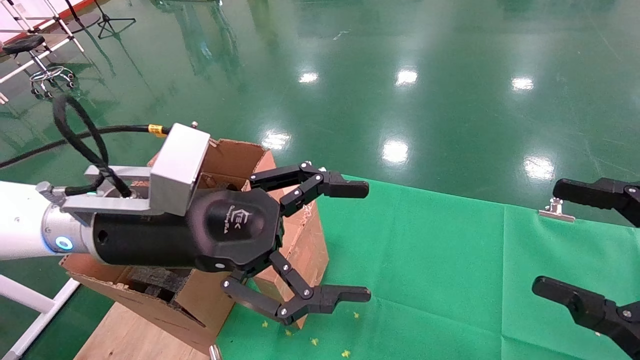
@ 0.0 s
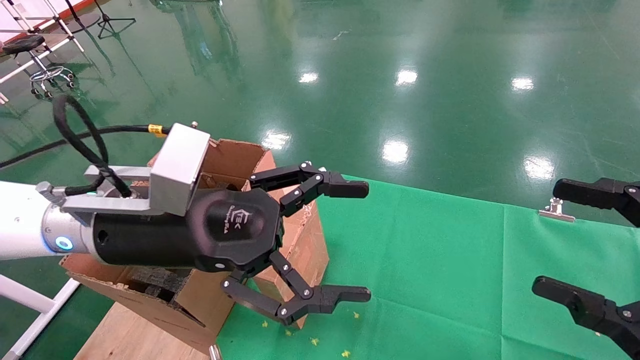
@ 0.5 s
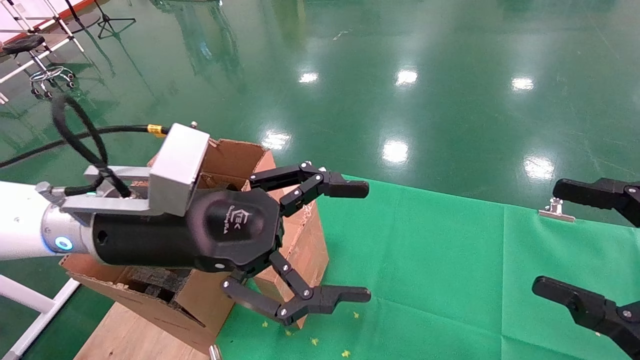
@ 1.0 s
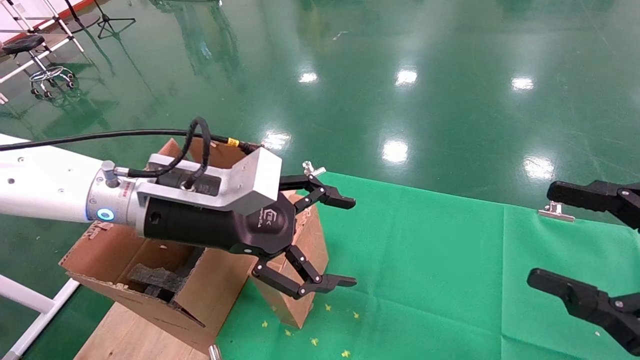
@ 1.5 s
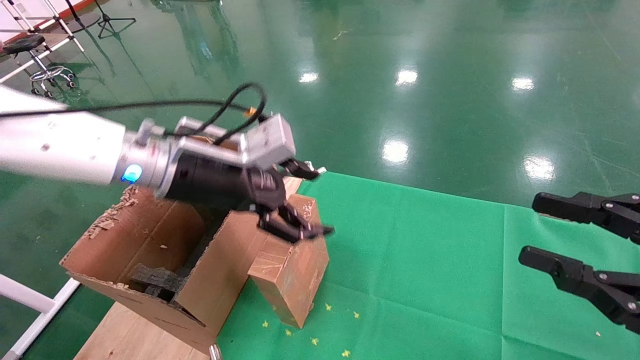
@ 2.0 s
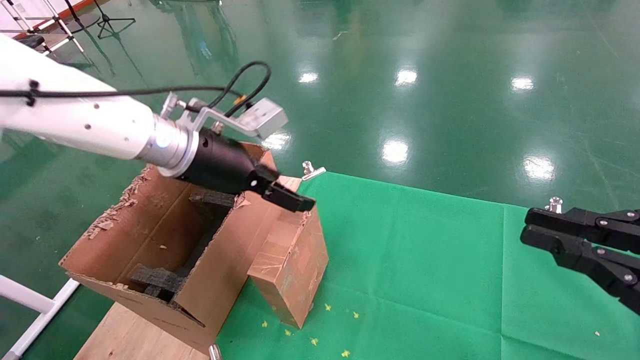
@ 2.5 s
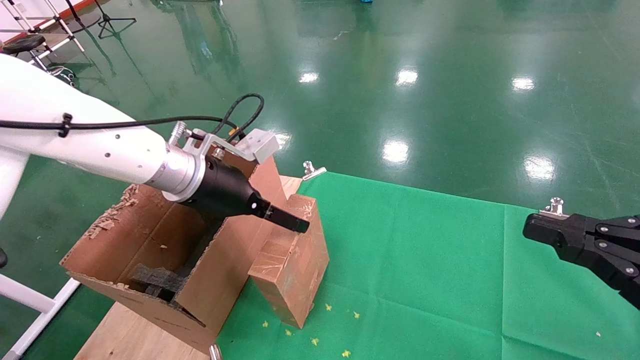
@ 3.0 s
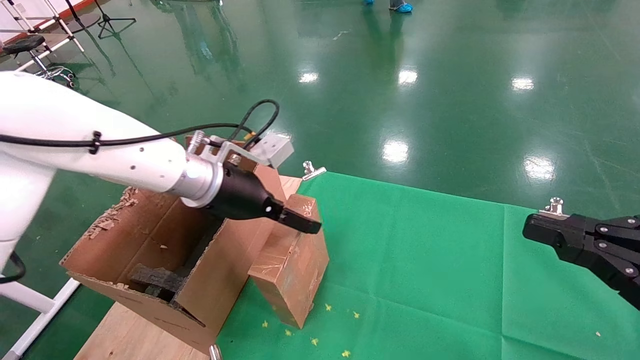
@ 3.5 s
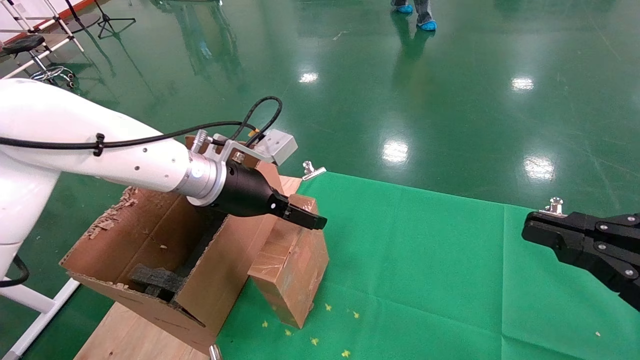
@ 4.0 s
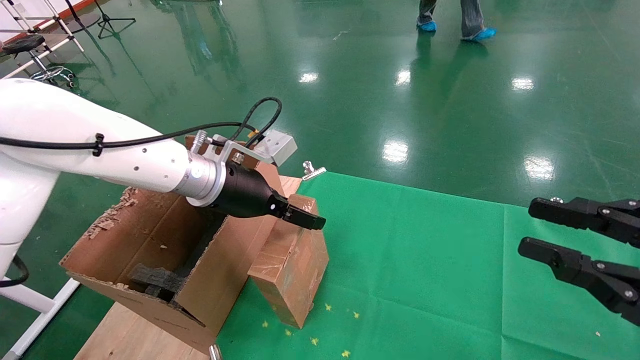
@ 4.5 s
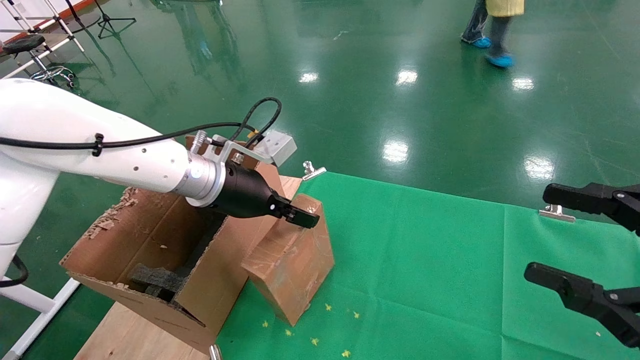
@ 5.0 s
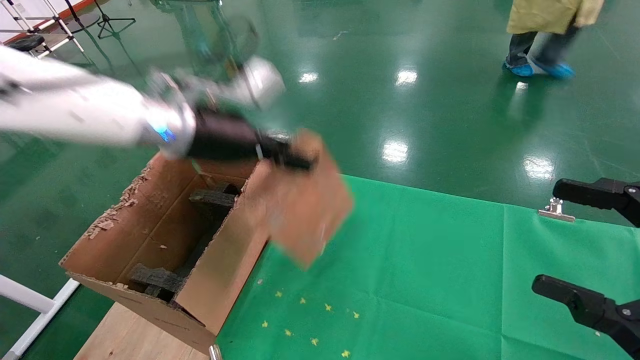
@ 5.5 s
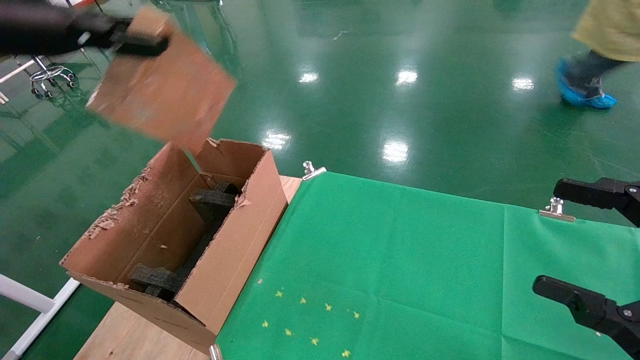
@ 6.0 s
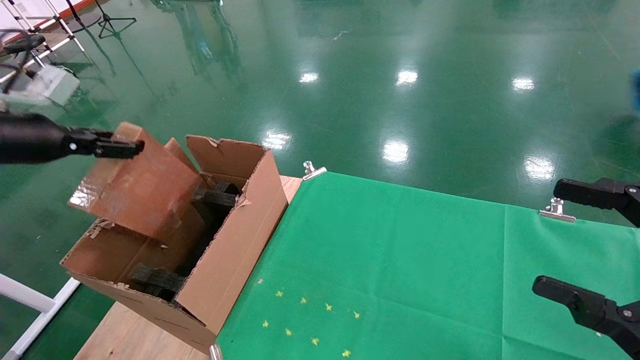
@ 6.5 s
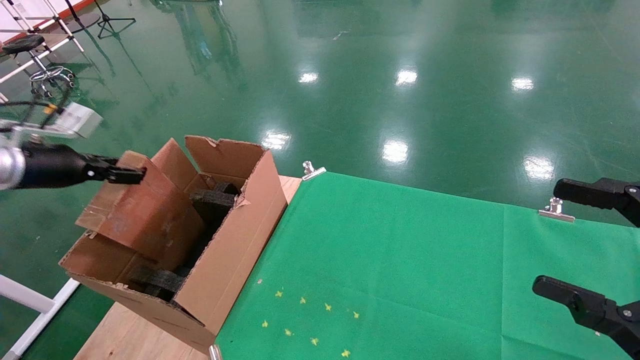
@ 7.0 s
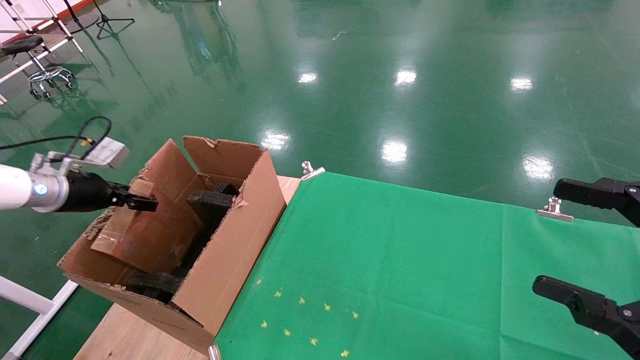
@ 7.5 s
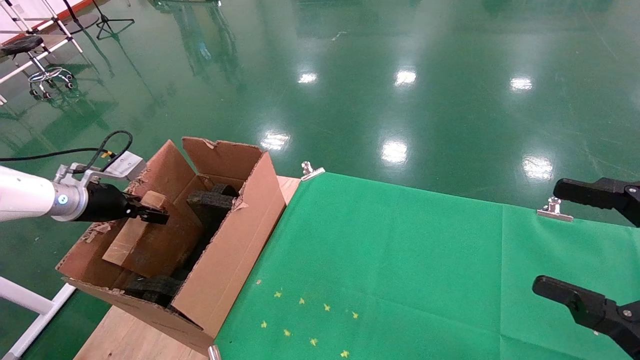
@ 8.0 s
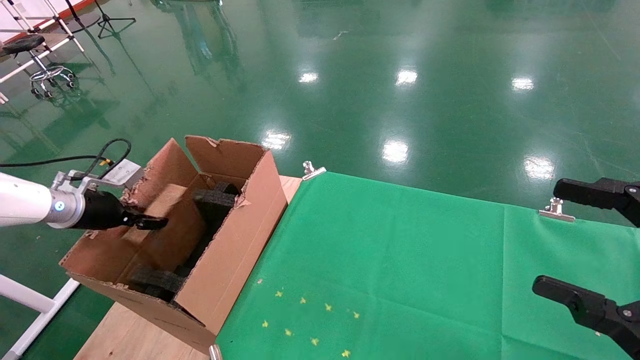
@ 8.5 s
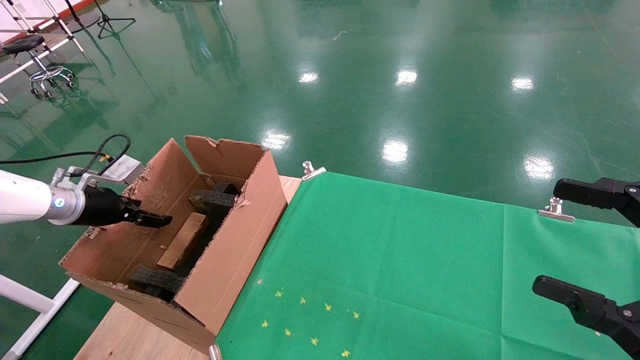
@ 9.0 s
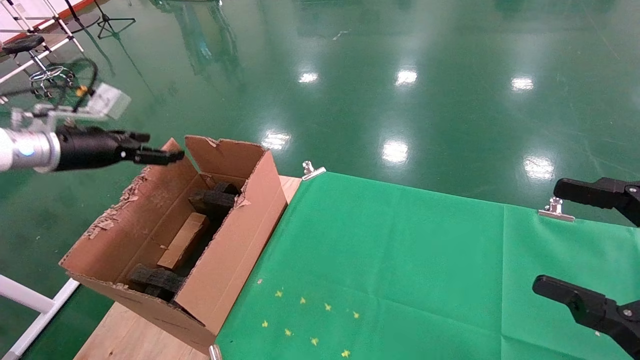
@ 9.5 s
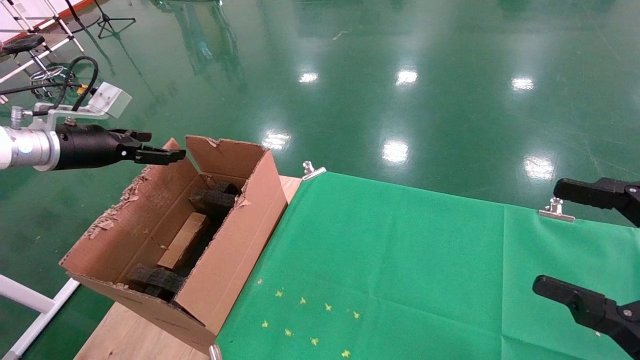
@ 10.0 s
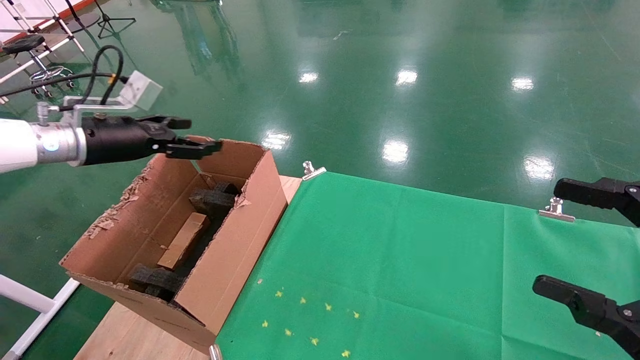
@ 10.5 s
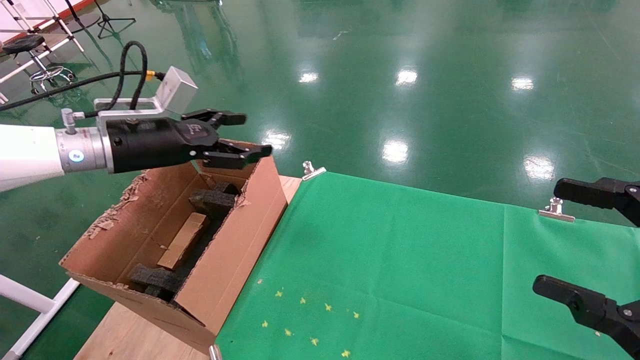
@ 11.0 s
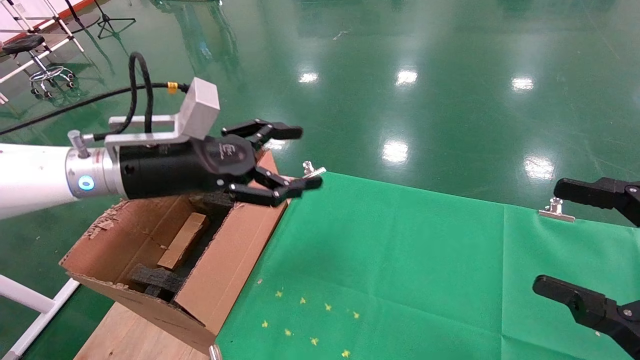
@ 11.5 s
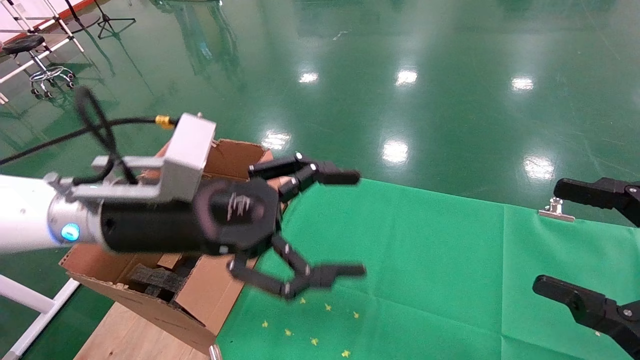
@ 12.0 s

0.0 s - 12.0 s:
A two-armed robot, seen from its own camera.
Task of the whole recording: using a robotic arm to pick up a cardboard box and palace it the carton.
Step, 1.5 s - 4.5 s: Pick up the mouse and the power cord paper box.
Step, 5.0 s - 9.5 s: Place the mouse and the power cord paper box into the container.
0.0 s - 2.0 s: The right gripper closes its fingers; the left gripper is displaced forward by roughly 10 cm.
2.0 s - 4.0 s: The left gripper shifts roughly 5 cm forward, while the right gripper closes its fingers.
4.0 s - 6.0 s: The right gripper opens. The left gripper travels to the left, upward and backward by some 25 cm, and closes up.
6.0 s - 8.0 s: The left gripper moves downward and to the left, about 25 cm.
8.0 s - 10.0 s: The left gripper is displaced upward by roughly 10 cm, and opens up.
10.0 s - 12.0 s: The left gripper goes about 30 cm to the right and backward.

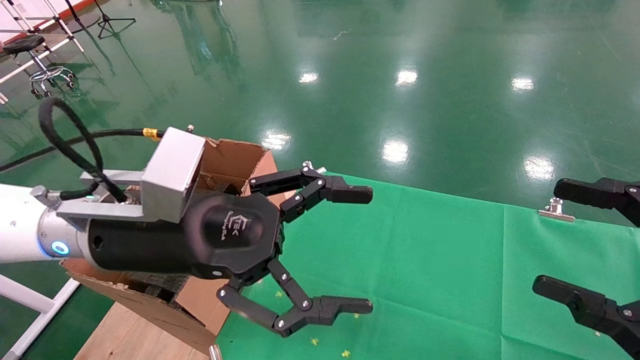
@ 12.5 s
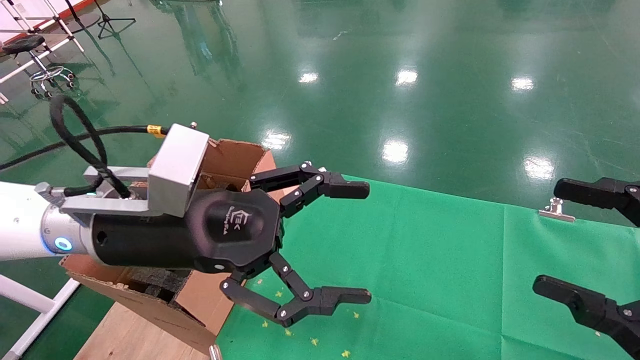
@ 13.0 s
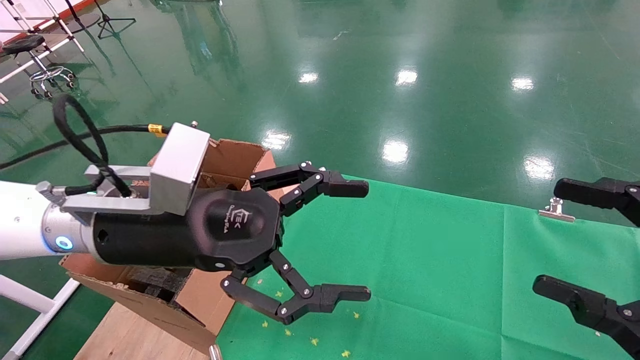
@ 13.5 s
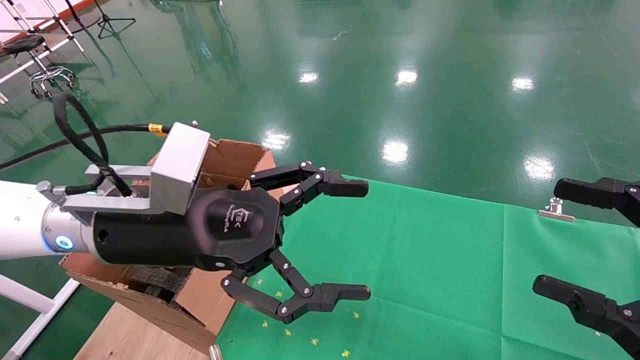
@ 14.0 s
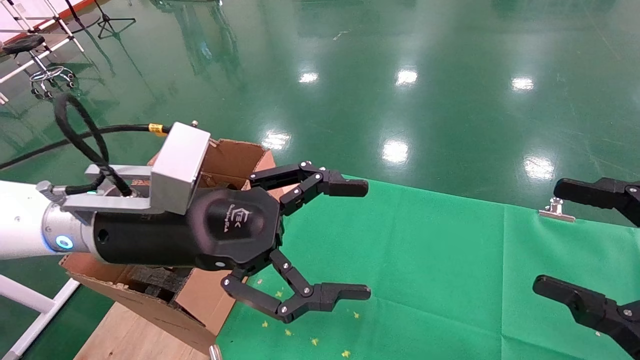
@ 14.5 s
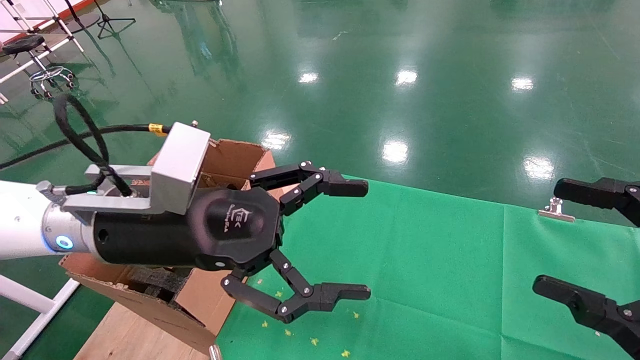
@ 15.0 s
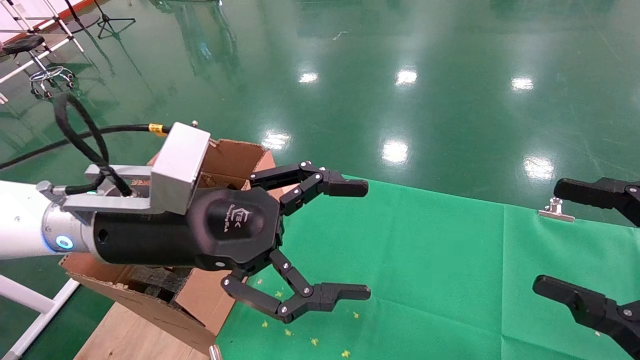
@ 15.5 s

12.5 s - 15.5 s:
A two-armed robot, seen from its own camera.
Task of the whole recording: using a robotic arm to pick up a cardboard box and palace it the carton.
12.5 s - 15.5 s: Both grippers stay about where they are.

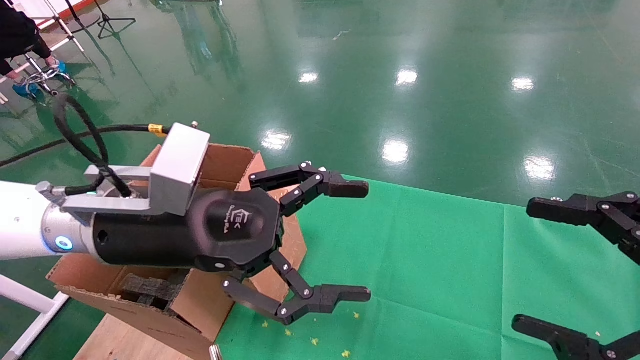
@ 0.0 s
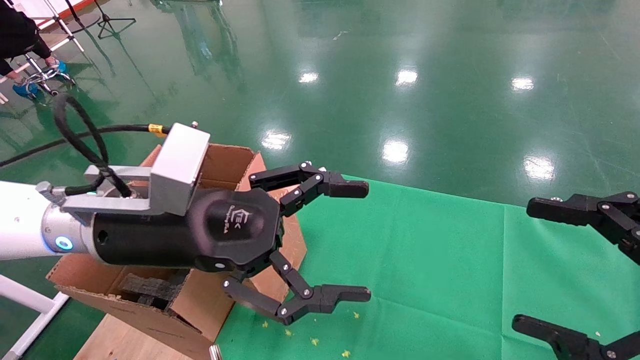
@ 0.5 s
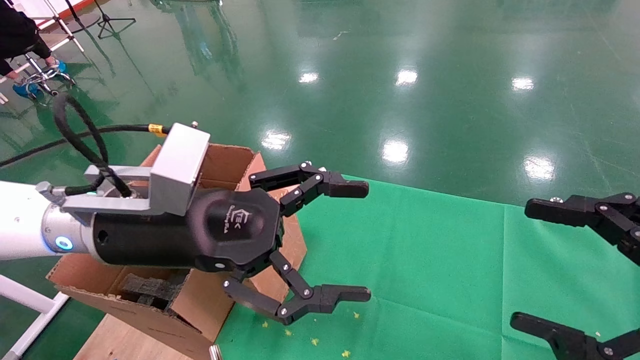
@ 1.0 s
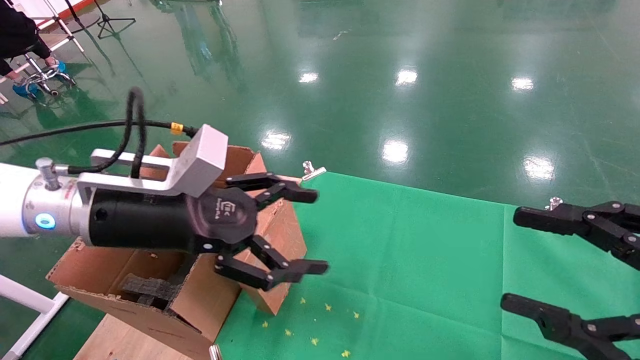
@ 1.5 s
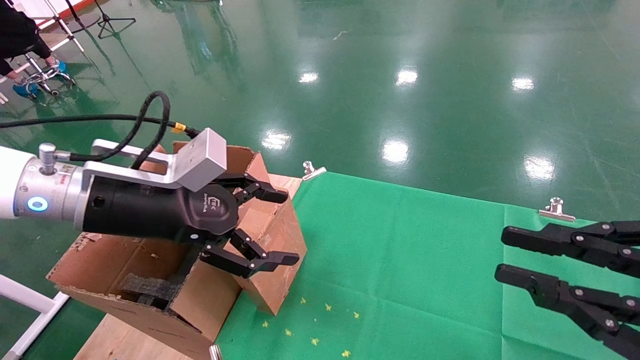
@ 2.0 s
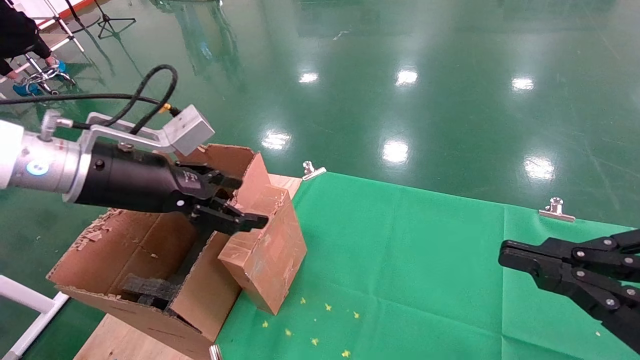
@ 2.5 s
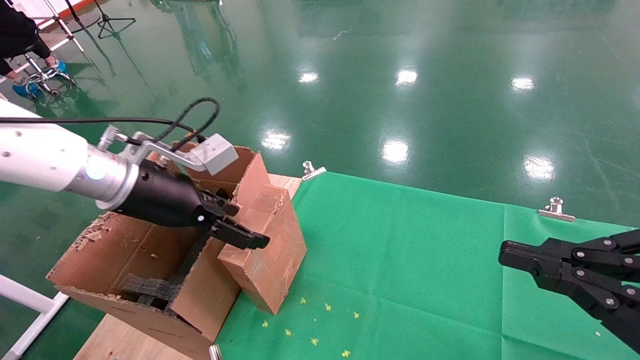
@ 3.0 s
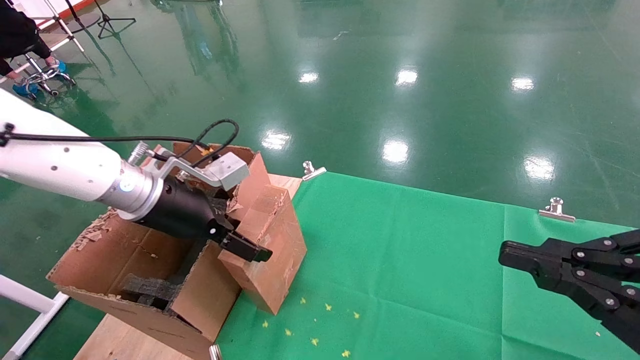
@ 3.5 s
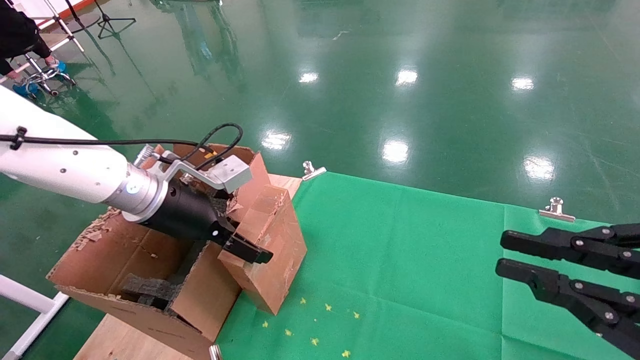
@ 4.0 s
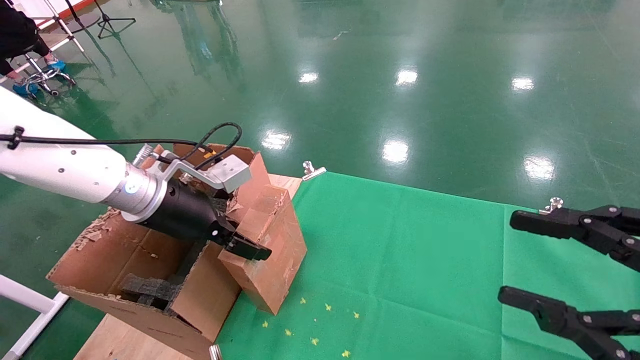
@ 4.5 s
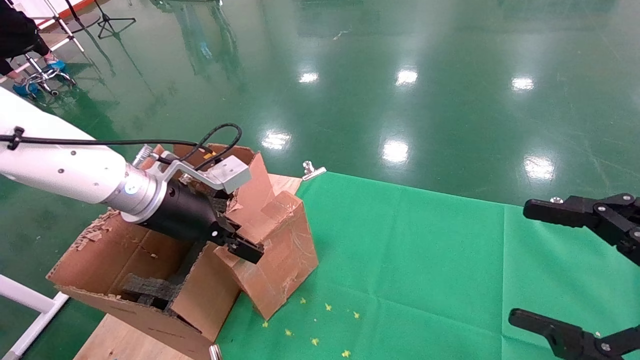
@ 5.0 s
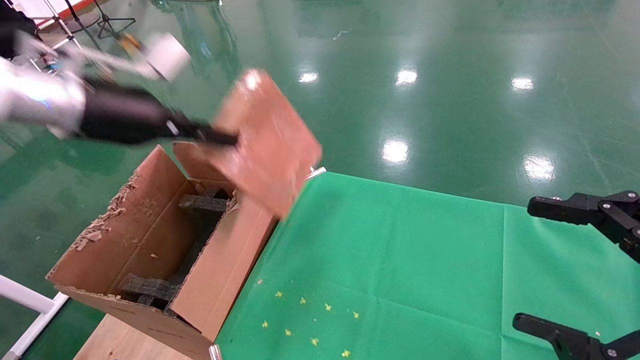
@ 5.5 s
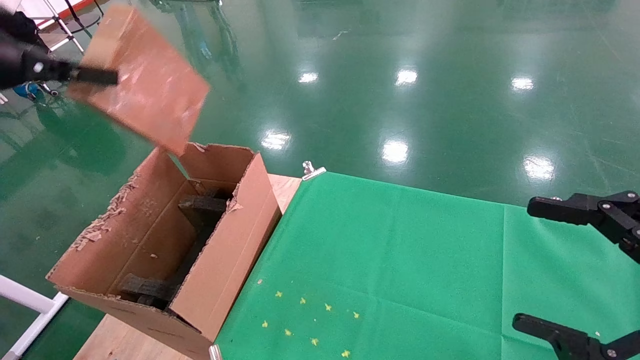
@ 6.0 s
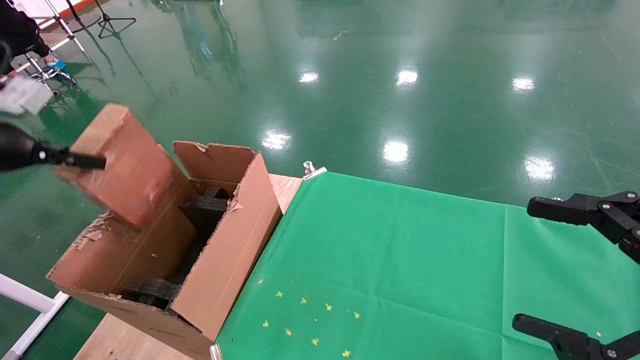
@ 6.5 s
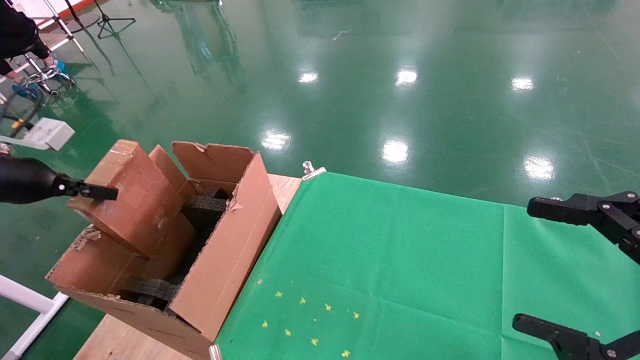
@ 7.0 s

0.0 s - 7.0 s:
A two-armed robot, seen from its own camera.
Task of the whole recording: using a robotic arm to pick up a cardboard box and palace it the carton.
Step, 1.5 s - 4.5 s: Pick up the mouse and the power cord paper box.
0.0 s - 2.0 s: The right gripper closes up, while the left gripper shifts approximately 5 cm to the left.
2.0 s - 3.5 s: The left gripper shifts roughly 5 cm forward.
3.5 s - 5.0 s: The left gripper closes up; the right gripper opens its fingers.
5.0 s - 7.0 s: The left gripper heads to the left, covering approximately 25 cm.
